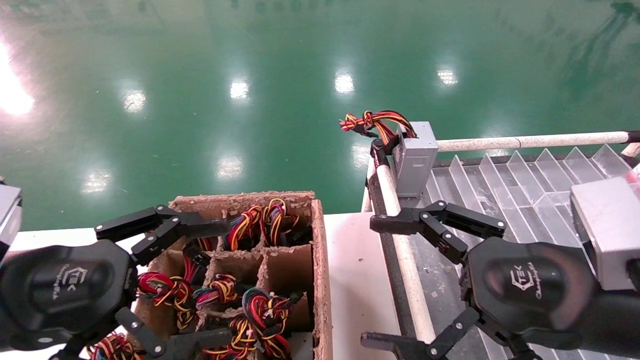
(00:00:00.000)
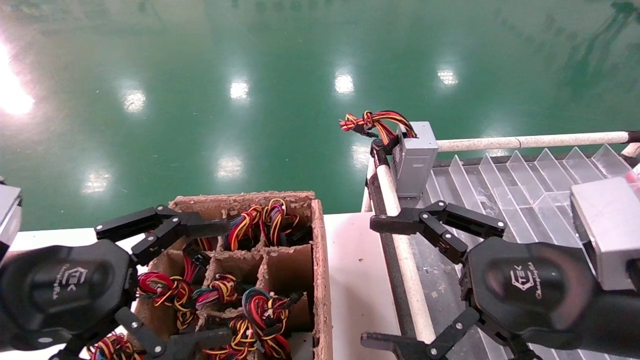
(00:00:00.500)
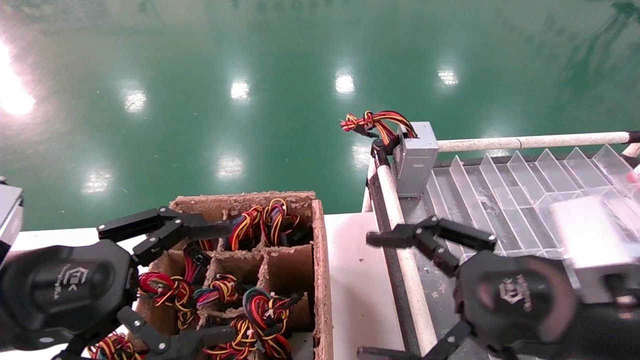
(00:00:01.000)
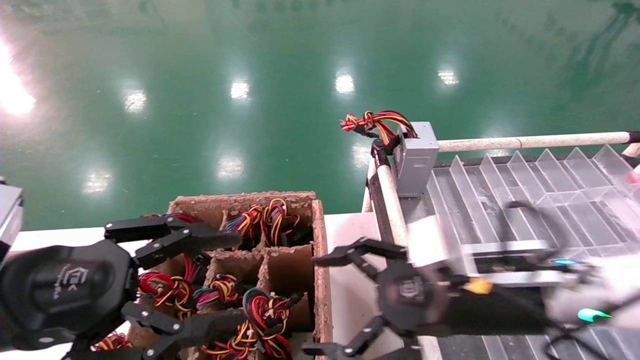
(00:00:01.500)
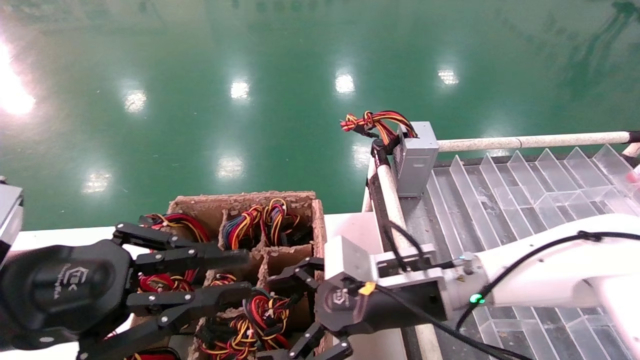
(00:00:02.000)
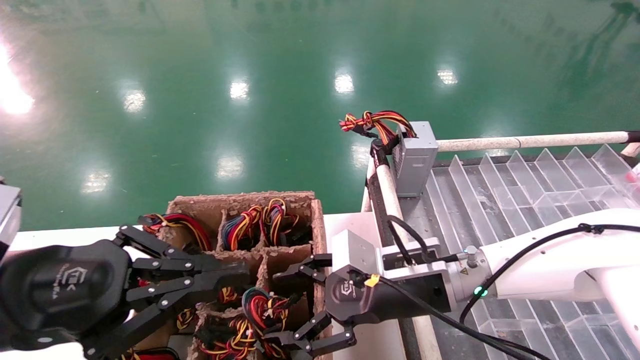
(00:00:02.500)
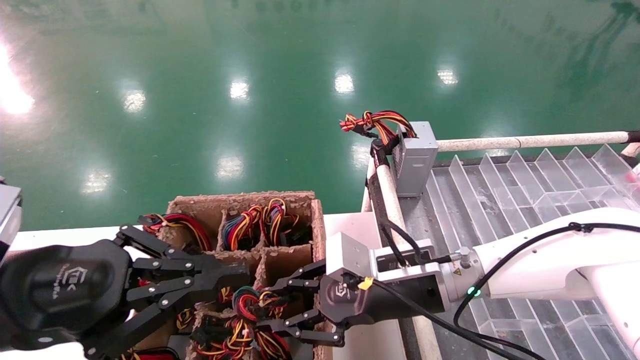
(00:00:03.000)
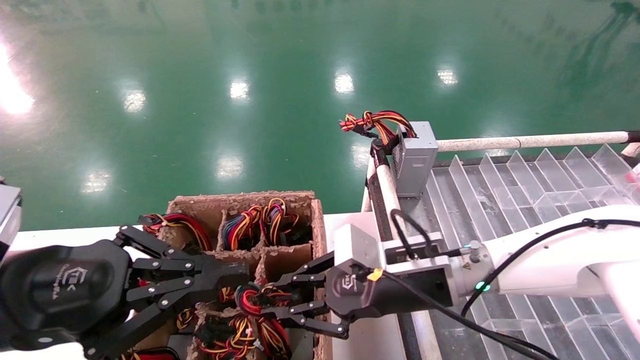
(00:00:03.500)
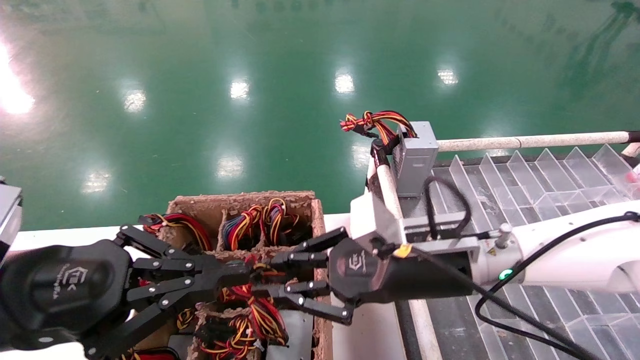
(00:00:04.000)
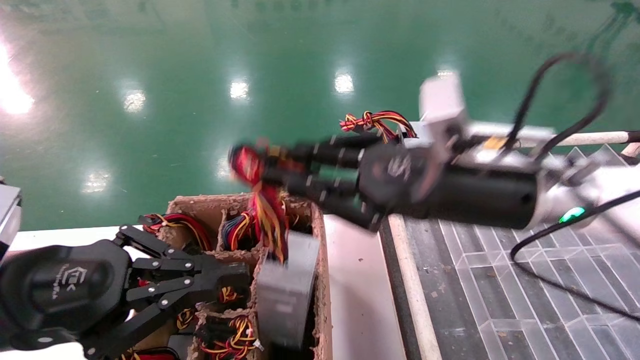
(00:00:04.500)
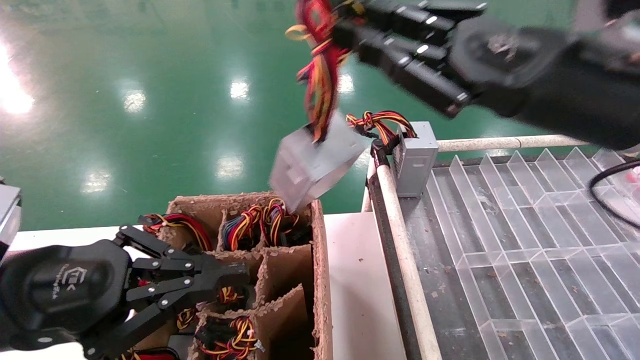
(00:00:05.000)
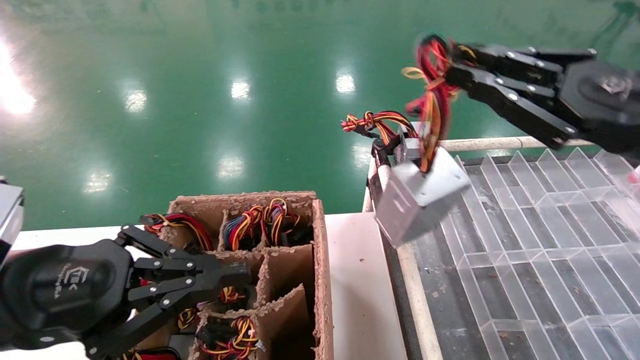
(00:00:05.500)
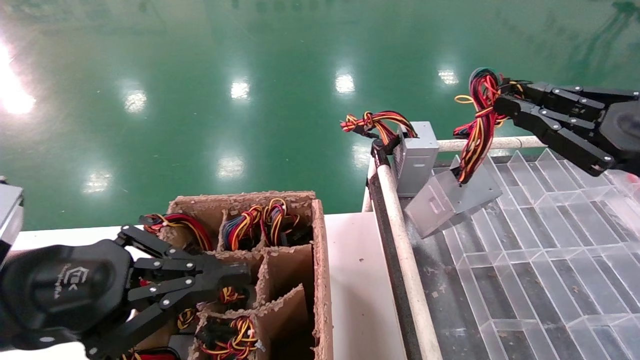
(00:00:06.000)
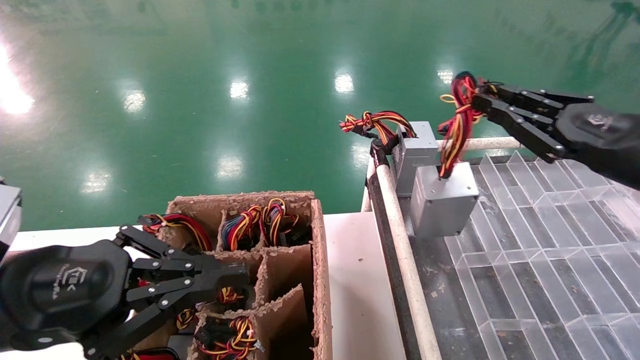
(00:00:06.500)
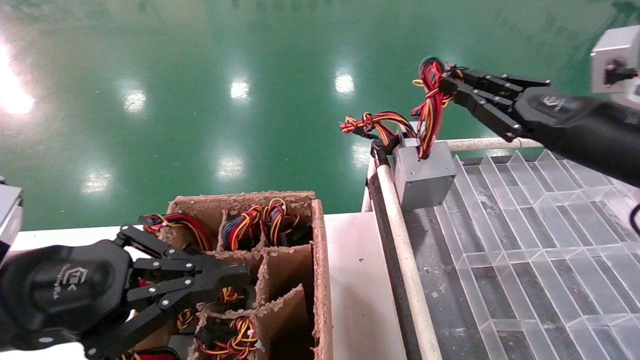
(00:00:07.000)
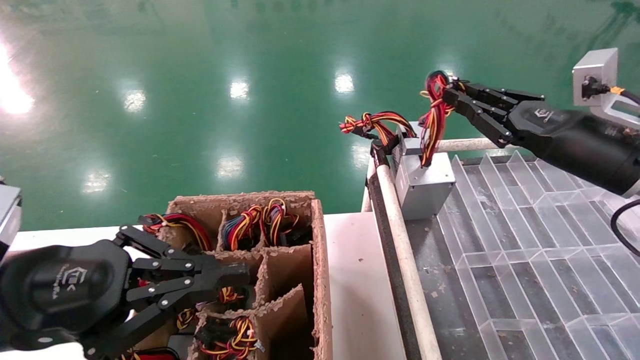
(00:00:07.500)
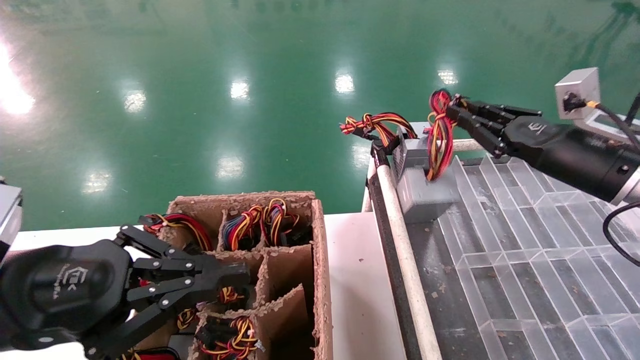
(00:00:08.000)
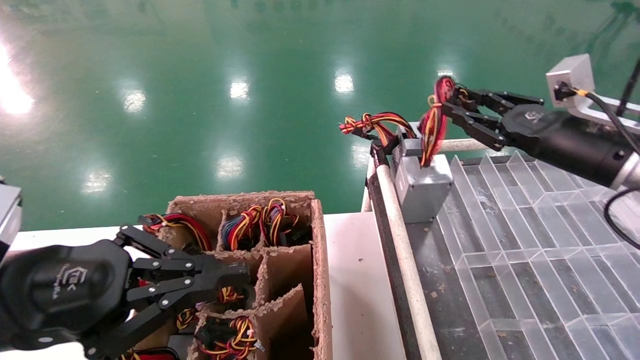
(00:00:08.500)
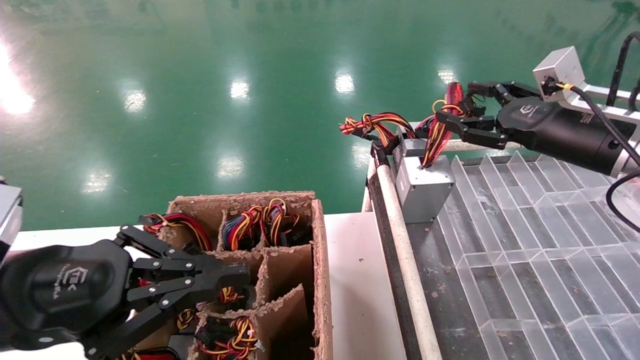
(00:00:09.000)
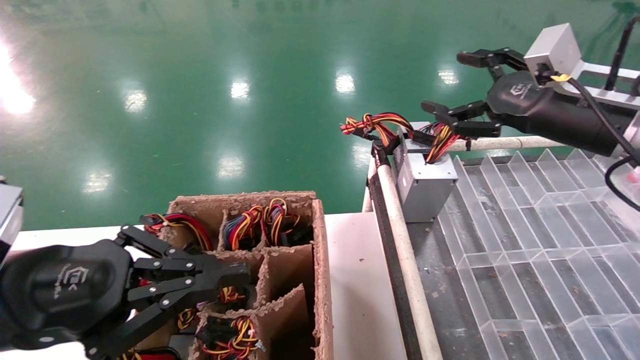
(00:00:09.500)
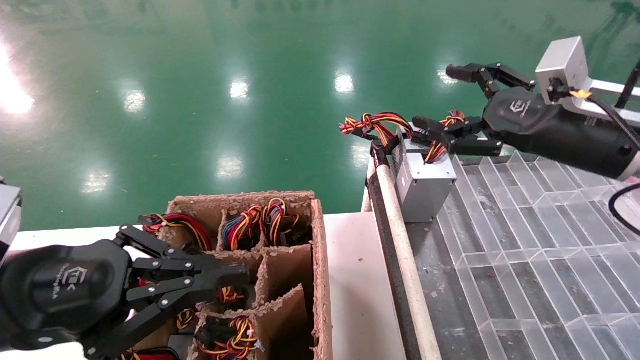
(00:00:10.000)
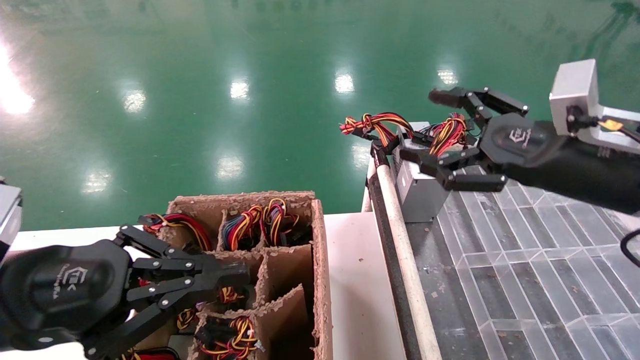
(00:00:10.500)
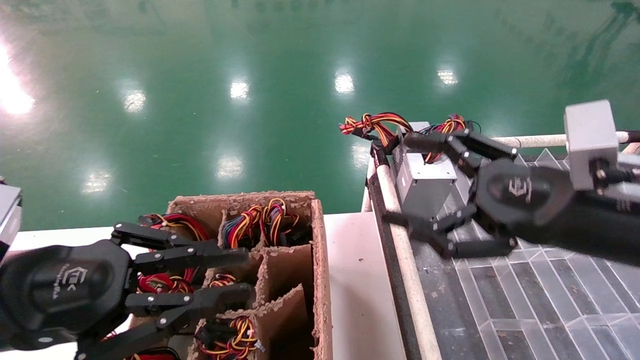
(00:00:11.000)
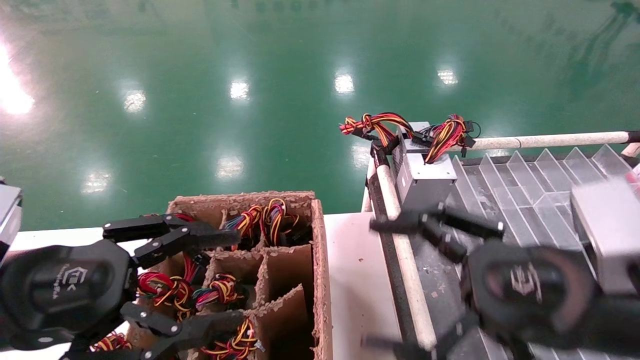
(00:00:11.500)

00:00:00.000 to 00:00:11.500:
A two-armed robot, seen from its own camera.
Step, 00:00:01.500 to 00:00:03.500: Grab the main unit power supply from the containment box.
Step, 00:00:04.000 to 00:00:08.500: Place the main unit power supply in the designated area.
00:00:00.000 to 00:00:02.000: The right gripper shifts some 20 cm forward, to the left and downward; the left gripper closes.
00:00:02.000 to 00:00:04.000: The right gripper shifts approximately 5 cm upward, and closes up.
00:00:04.000 to 00:00:06.000: The right gripper moves to the right and upward, some 25 cm.
00:00:06.000 to 00:00:07.500: The right gripper is displaced forward by approximately 10 cm.
00:00:07.500 to 00:00:09.500: The right gripper opens.
00:00:09.500 to 00:00:11.500: The left gripper opens up; the right gripper travels backward, downward and to the left by approximately 20 cm.

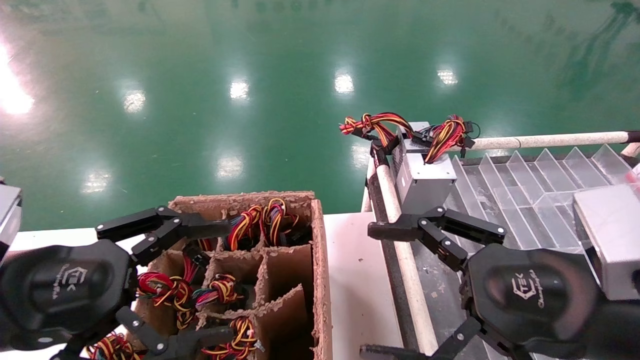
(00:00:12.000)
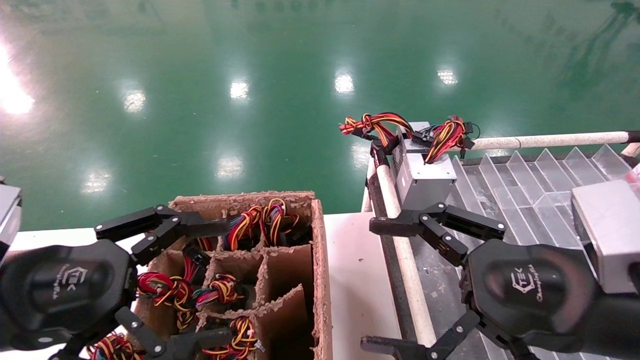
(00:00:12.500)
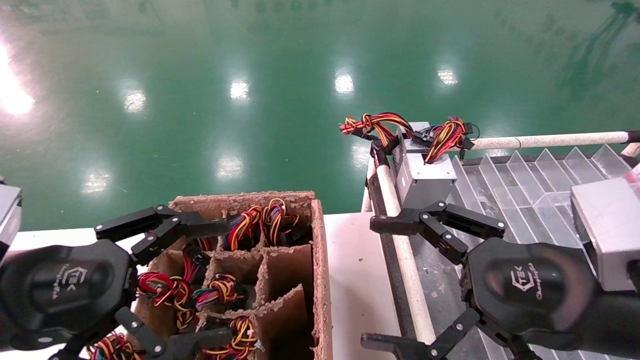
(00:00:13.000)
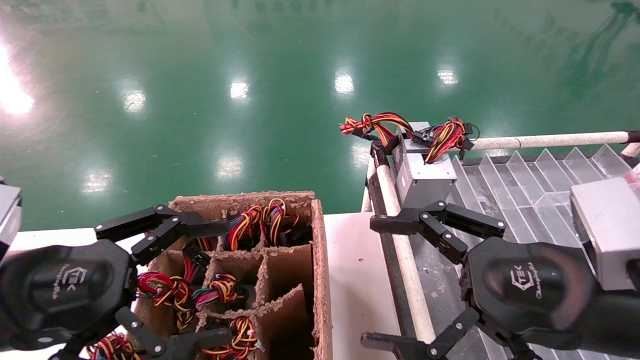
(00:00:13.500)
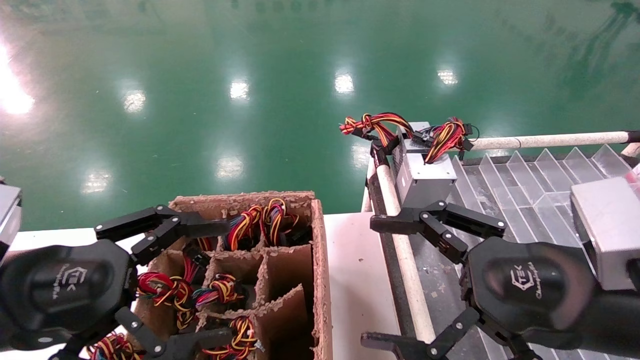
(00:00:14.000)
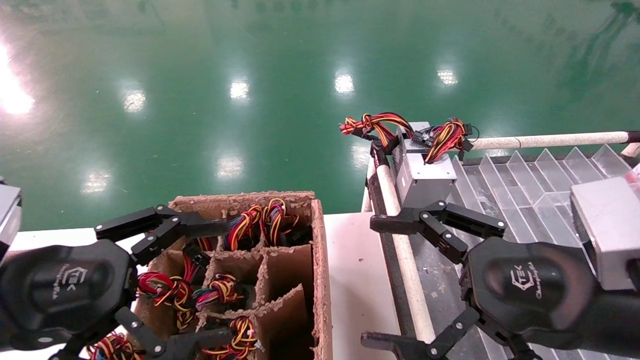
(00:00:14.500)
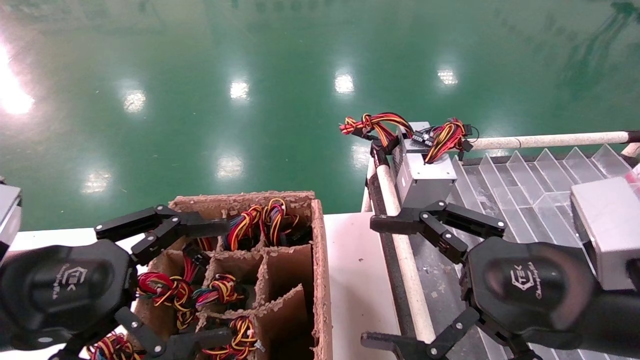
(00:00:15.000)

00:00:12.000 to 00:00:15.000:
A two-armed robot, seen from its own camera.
00:00:12.000 to 00:00:15.000: Both grippers stay put.
